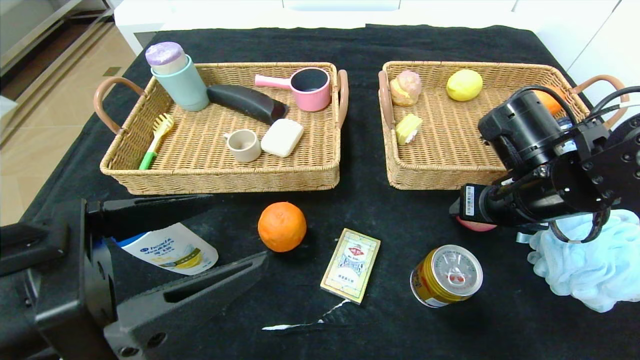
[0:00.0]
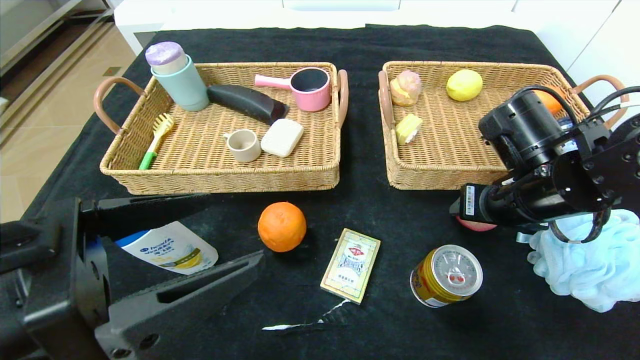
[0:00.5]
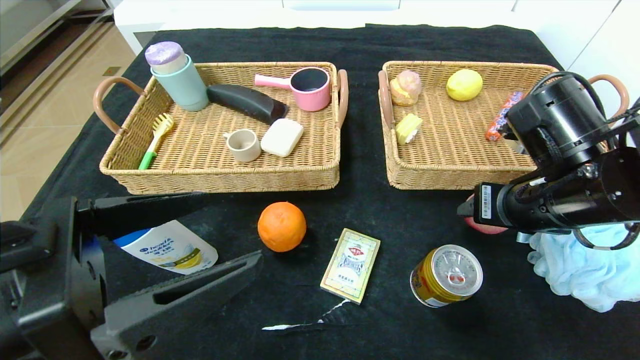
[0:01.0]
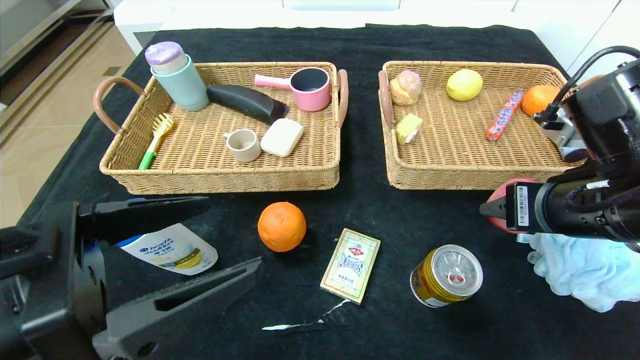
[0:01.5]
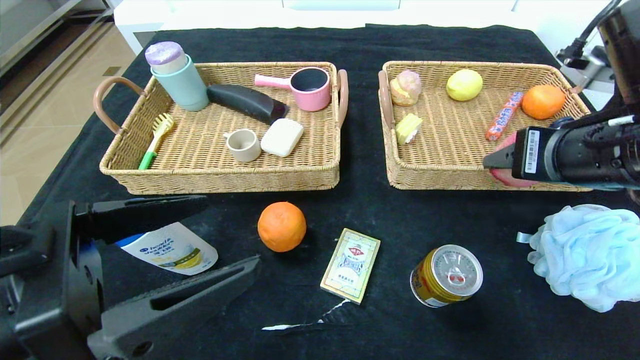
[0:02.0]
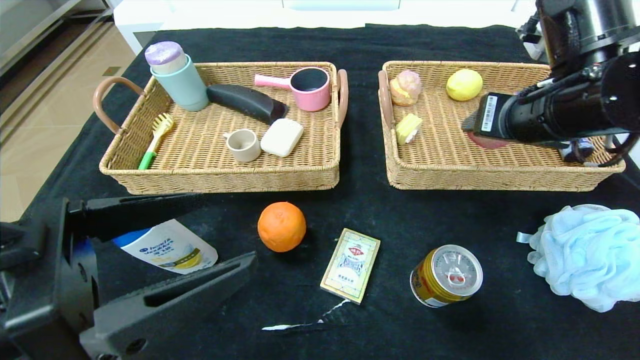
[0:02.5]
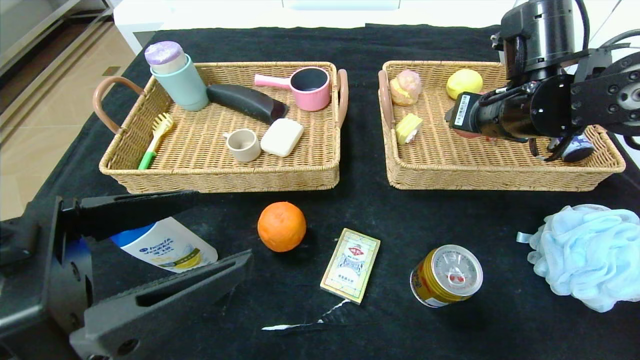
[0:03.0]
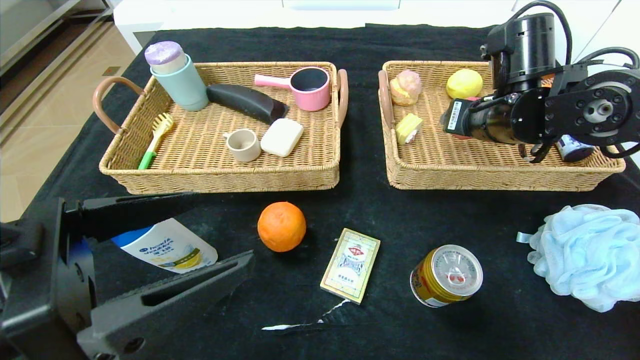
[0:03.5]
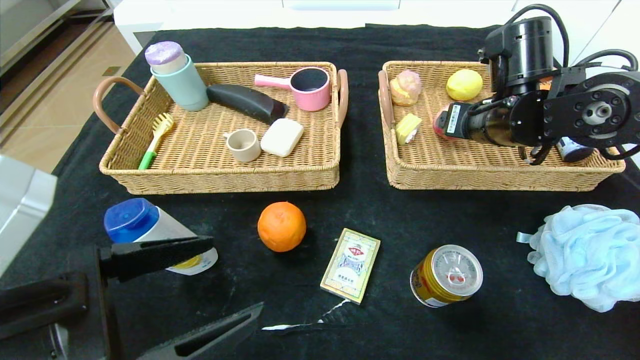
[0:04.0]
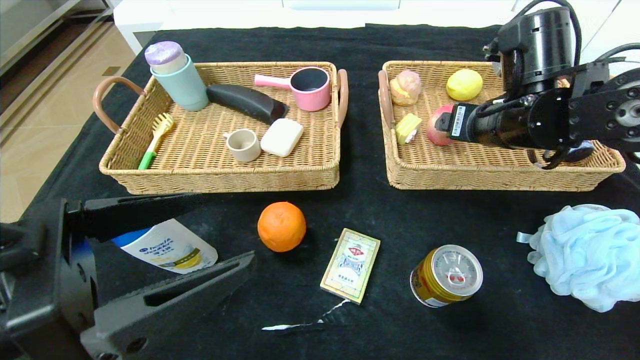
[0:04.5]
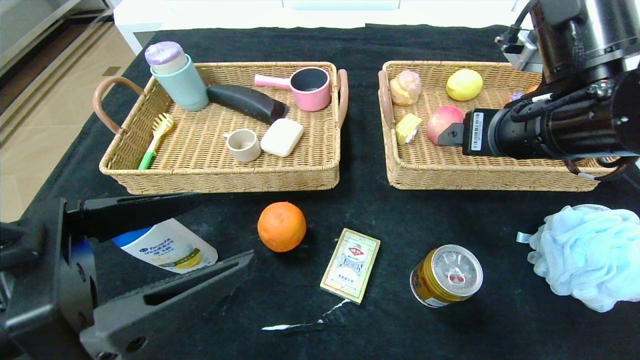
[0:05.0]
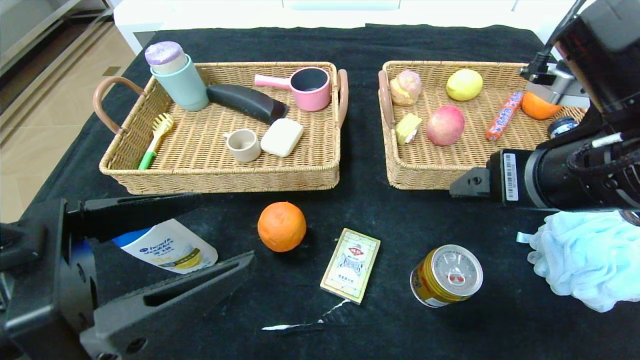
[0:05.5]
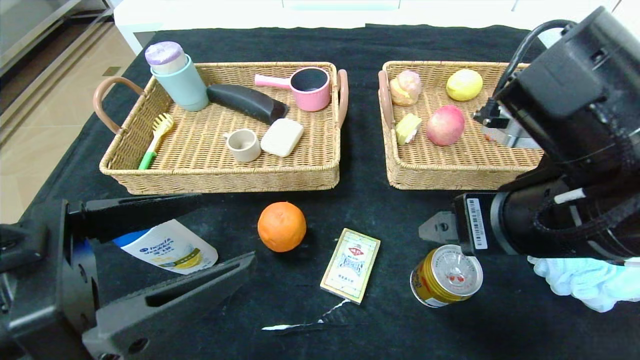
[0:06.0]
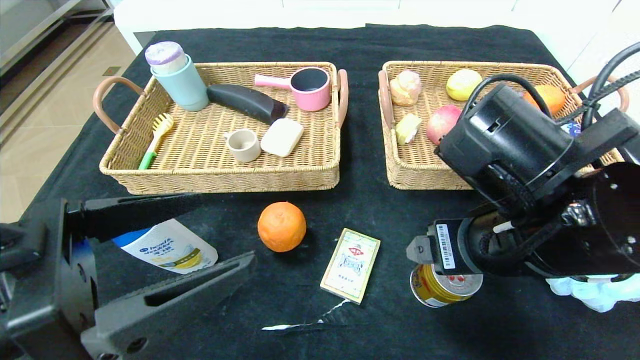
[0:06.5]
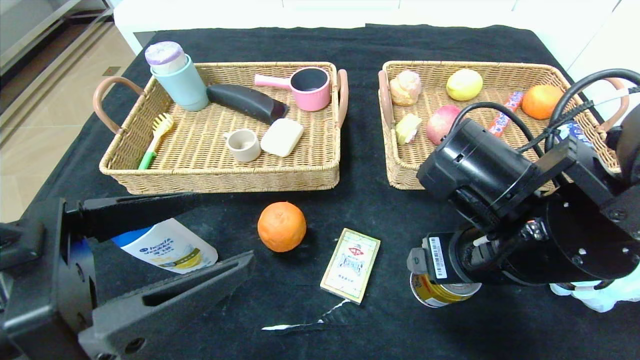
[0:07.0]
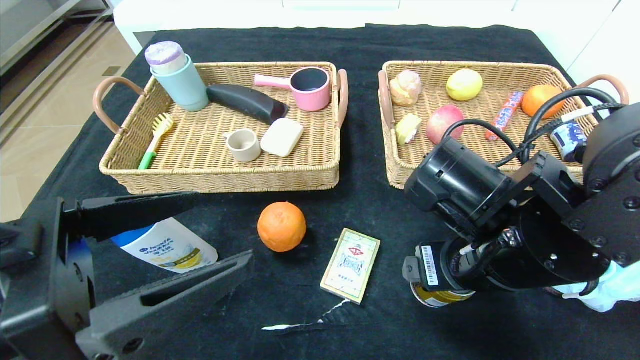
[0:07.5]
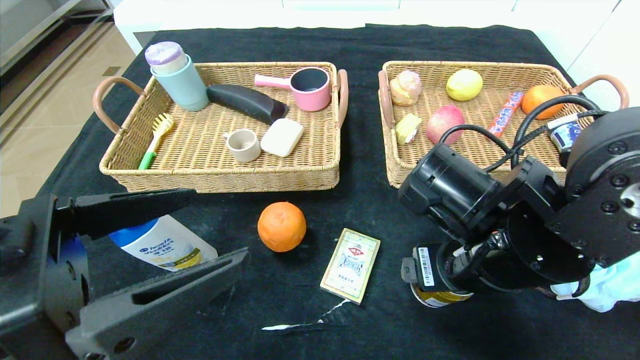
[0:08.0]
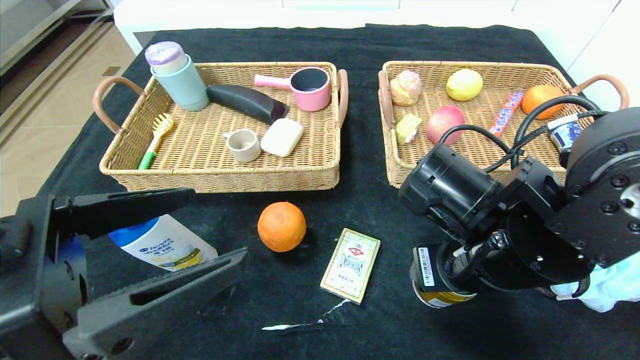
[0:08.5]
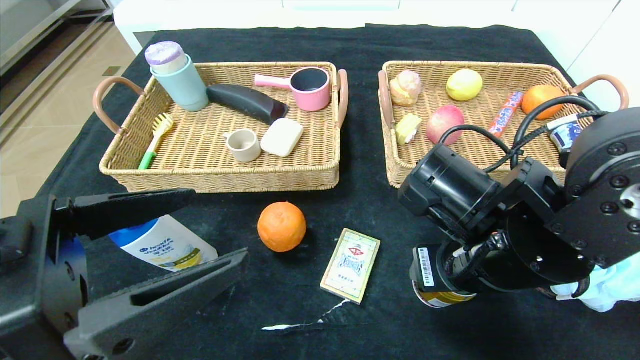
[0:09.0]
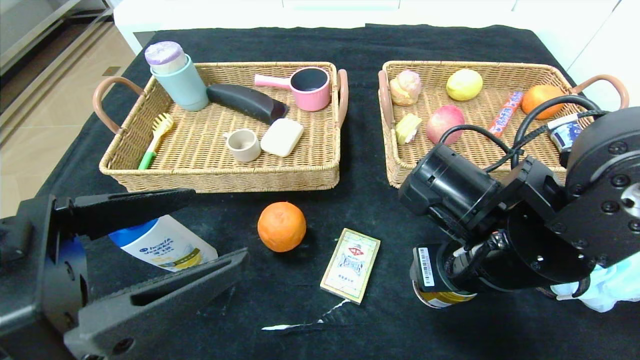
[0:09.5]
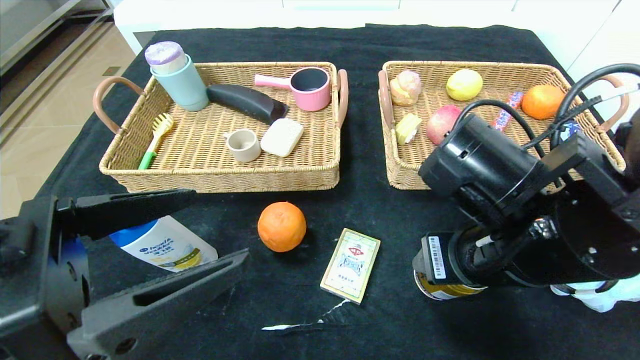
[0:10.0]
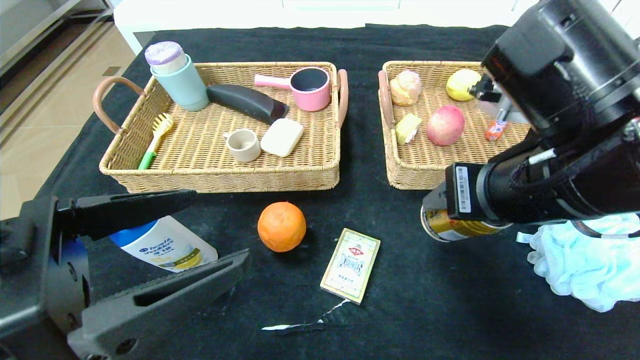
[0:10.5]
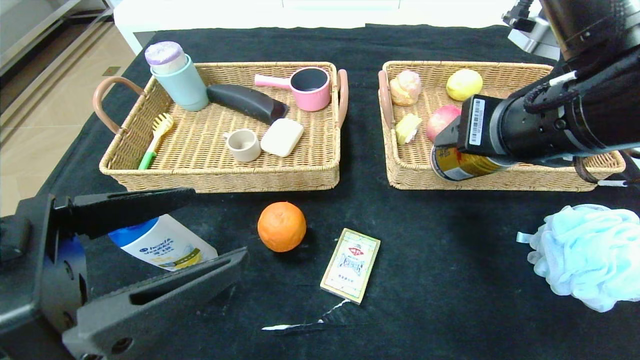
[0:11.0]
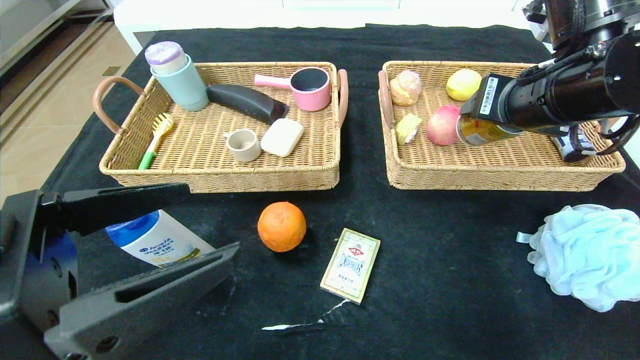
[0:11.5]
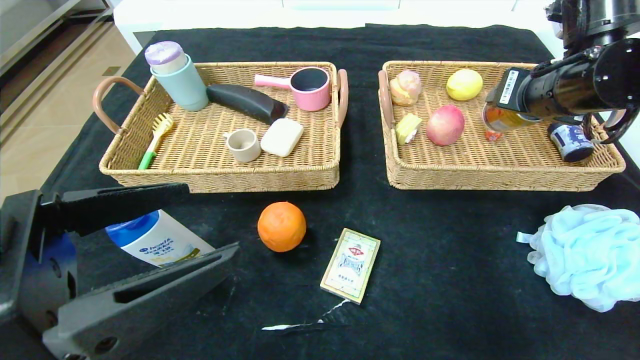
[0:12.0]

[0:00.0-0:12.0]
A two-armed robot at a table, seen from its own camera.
Step, 0:00.0 to 0:03.5: Grasp the peach and put it in the right basket.
0:00.0 to 0:02.0: The right gripper goes roughly 10 cm upward and backward.
0:02.0 to 0:04.0: The right gripper heads forward, covering about 15 cm, and opens up.
0:04.0 to 0:06.0: The right gripper shifts roughly 20 cm backward.
0:06.0 to 0:08.0: The right gripper goes about 5 cm downward.
0:08.0 to 0:10.0: The right gripper closes.
0:10.0 to 0:12.0: The right gripper travels forward, to the right and upward by about 20 cm.

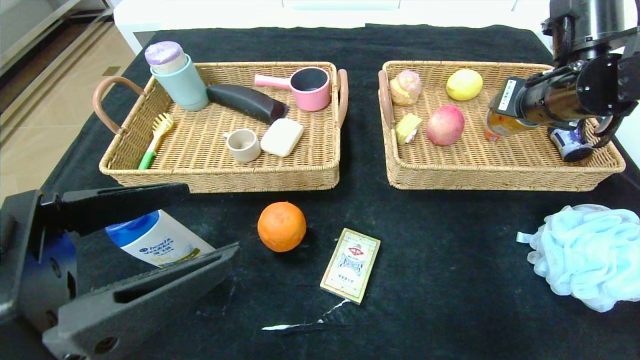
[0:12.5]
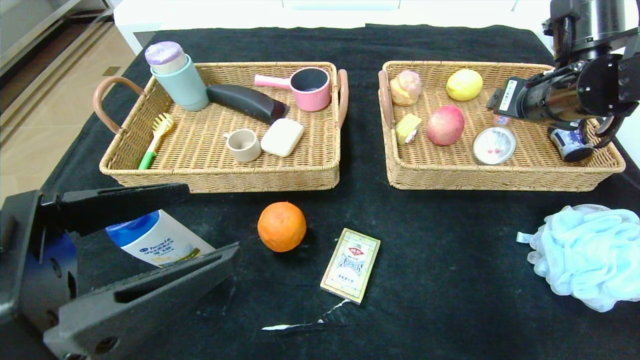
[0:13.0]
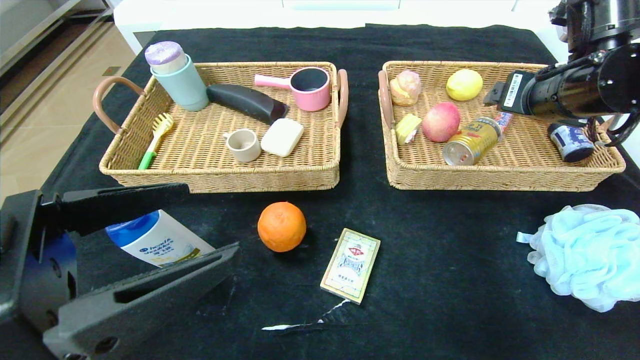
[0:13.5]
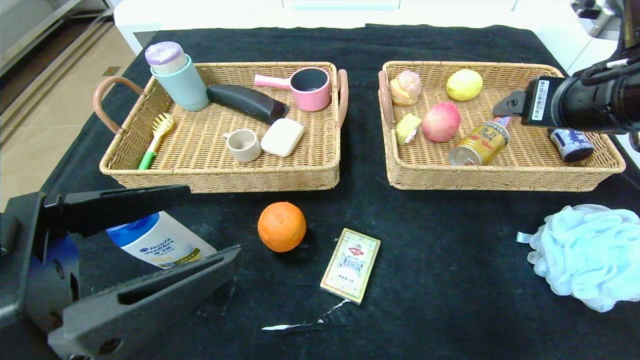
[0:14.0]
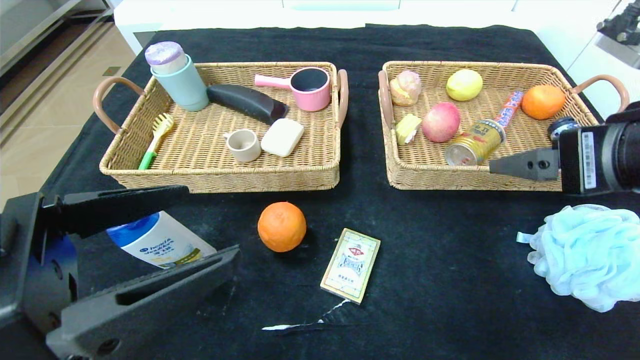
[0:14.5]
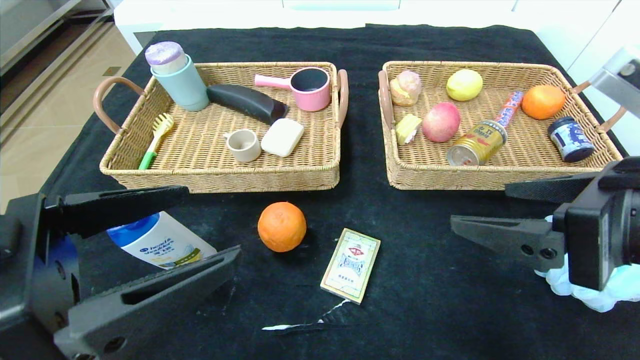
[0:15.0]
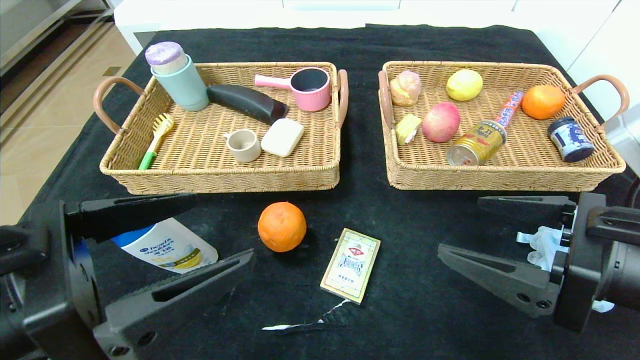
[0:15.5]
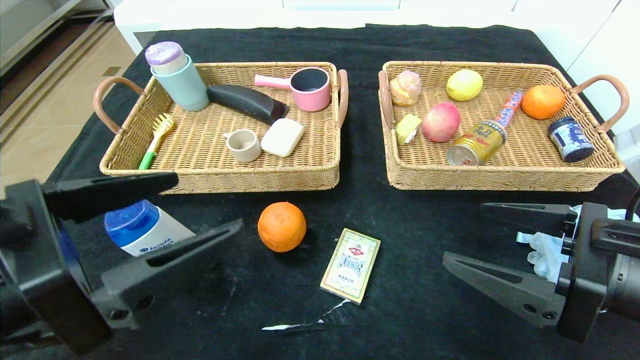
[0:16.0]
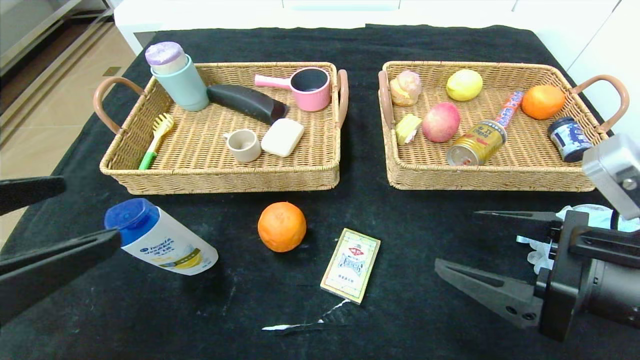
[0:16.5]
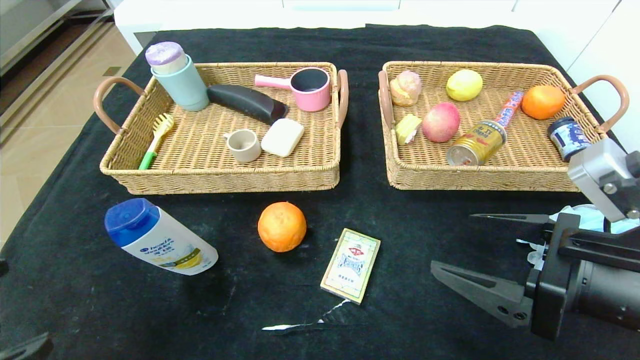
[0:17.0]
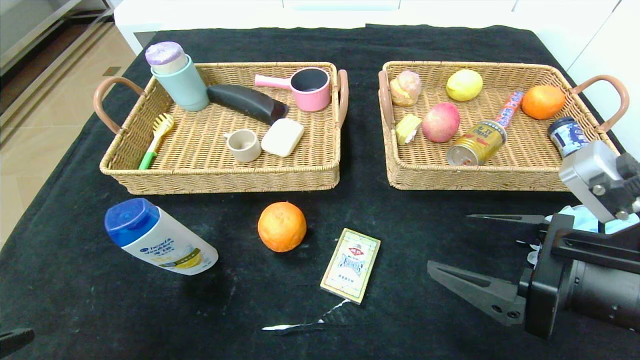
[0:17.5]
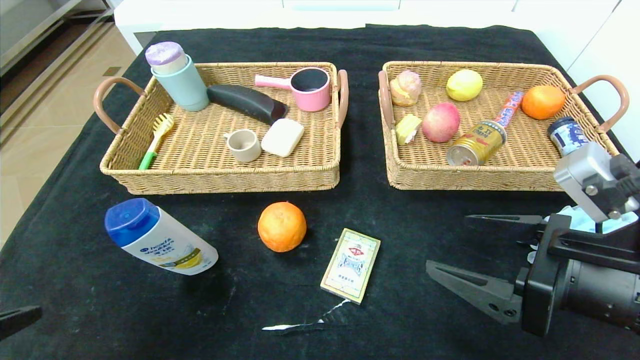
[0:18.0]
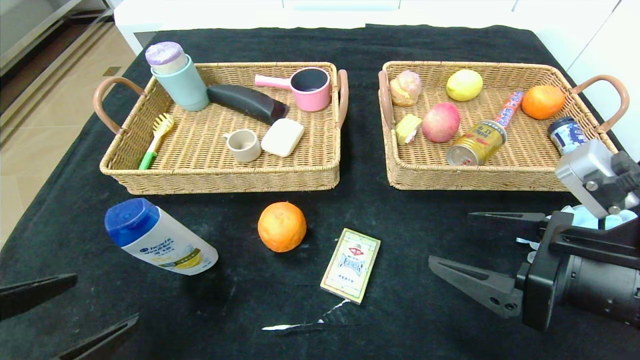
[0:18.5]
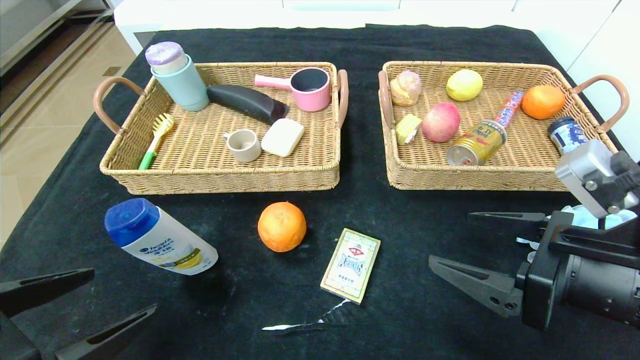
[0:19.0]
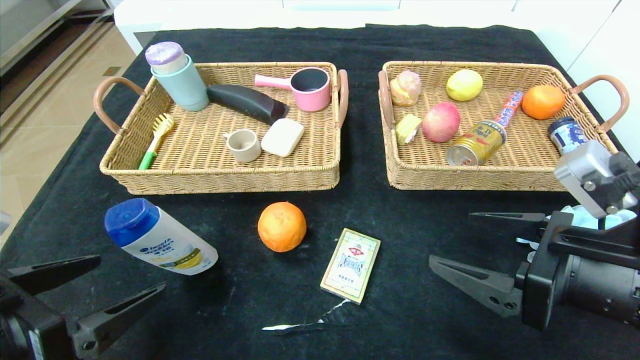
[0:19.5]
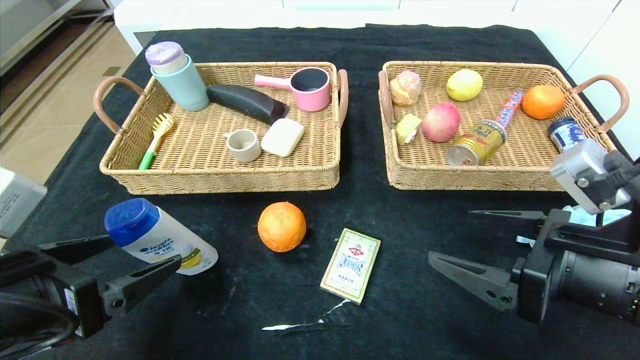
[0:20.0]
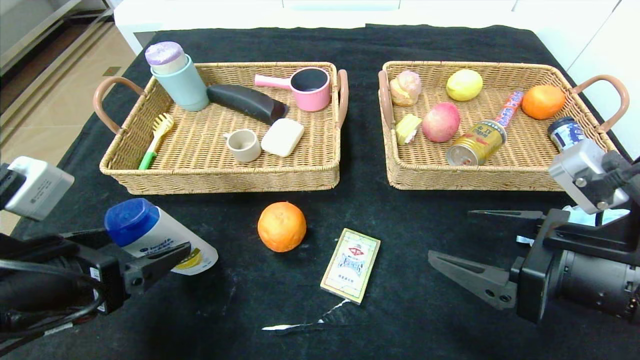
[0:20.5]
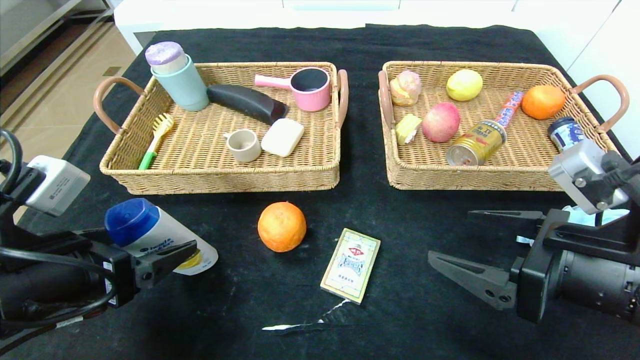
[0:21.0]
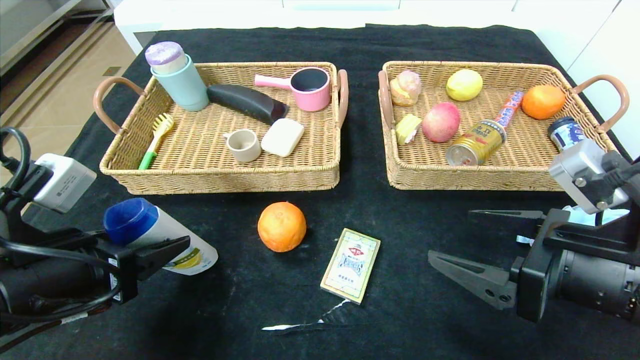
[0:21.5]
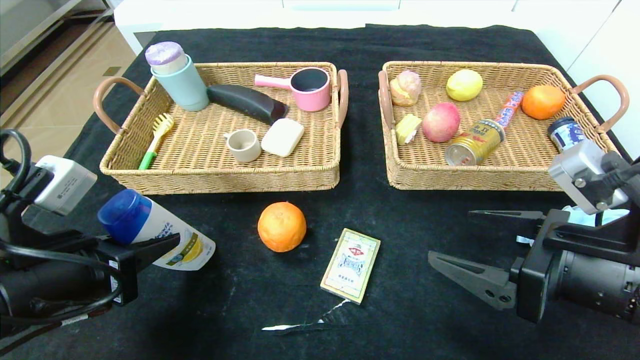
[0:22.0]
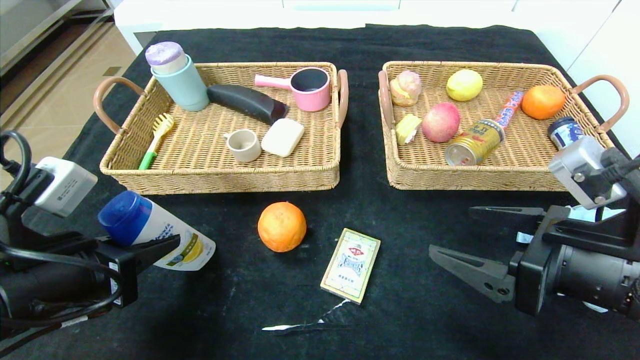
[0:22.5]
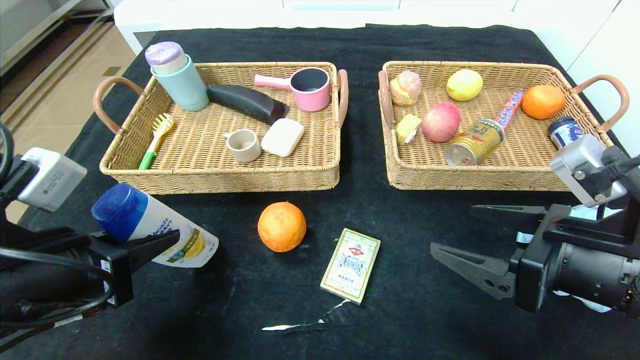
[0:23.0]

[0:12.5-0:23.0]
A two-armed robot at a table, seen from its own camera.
0:12.5 to 0:14.5: The right gripper travels backward by about 15 cm, and opens up.
0:14.5 to 0:16.5: The left gripper ends up roughly 5 cm from where it was. The right gripper travels downward by roughly 10 cm.
0:16.5 to 0:19.0: The left gripper travels downward by approximately 10 cm.
0:19.0 to 0:21.0: The left gripper travels forward by roughly 10 cm.
0:21.0 to 0:23.0: The left gripper closes up.
